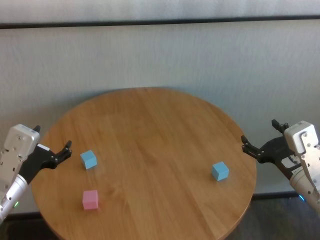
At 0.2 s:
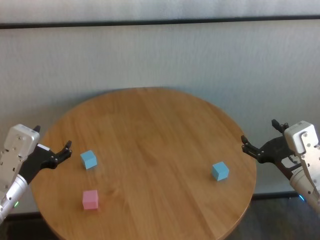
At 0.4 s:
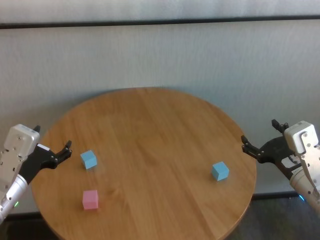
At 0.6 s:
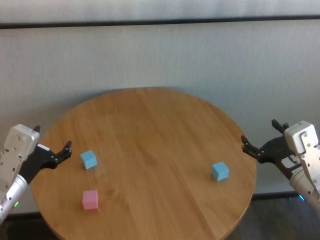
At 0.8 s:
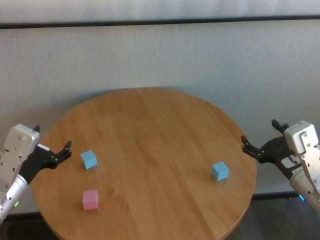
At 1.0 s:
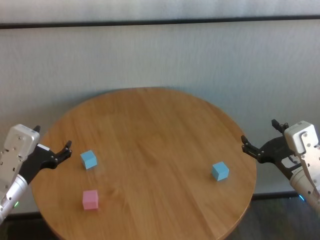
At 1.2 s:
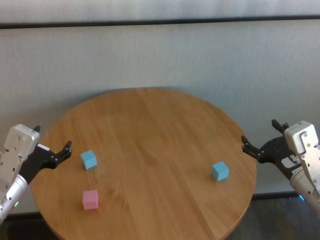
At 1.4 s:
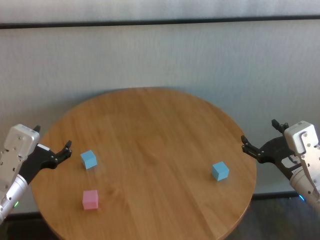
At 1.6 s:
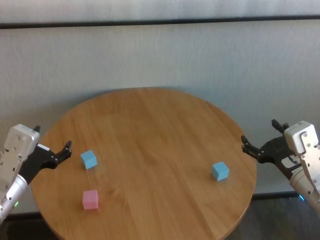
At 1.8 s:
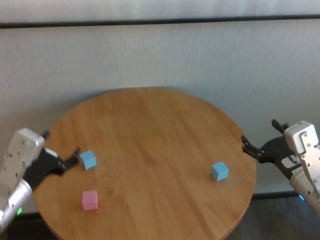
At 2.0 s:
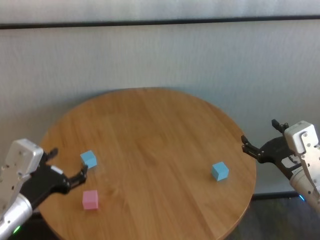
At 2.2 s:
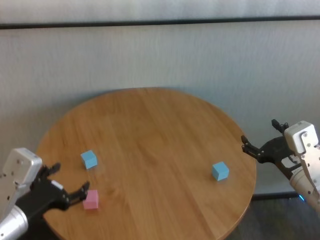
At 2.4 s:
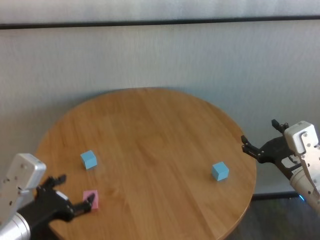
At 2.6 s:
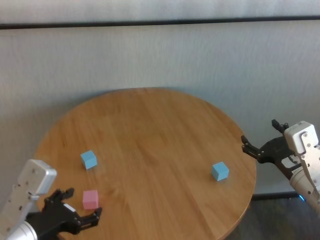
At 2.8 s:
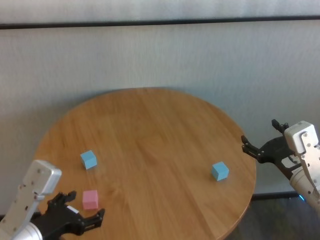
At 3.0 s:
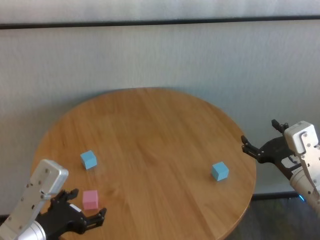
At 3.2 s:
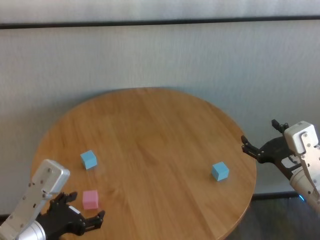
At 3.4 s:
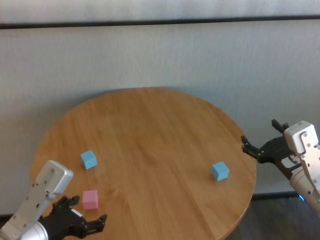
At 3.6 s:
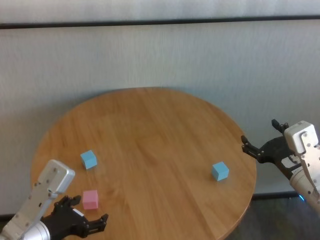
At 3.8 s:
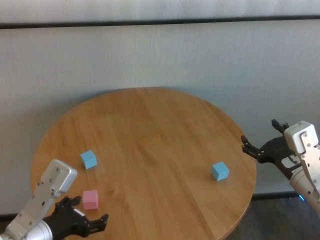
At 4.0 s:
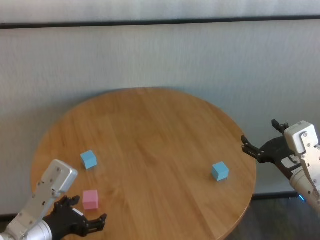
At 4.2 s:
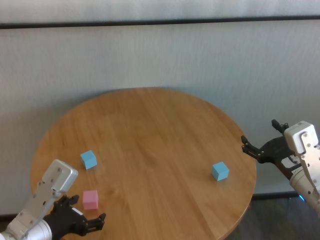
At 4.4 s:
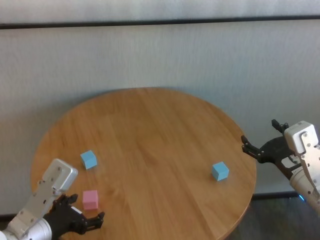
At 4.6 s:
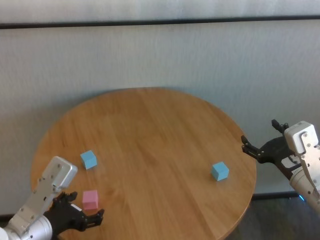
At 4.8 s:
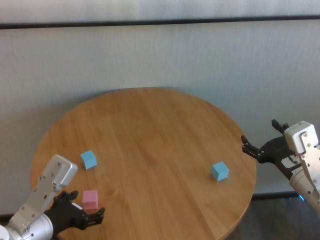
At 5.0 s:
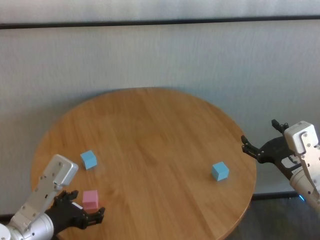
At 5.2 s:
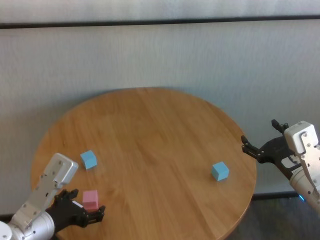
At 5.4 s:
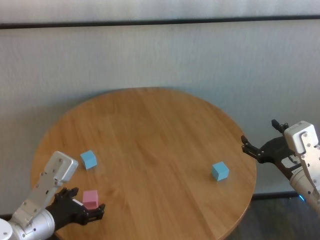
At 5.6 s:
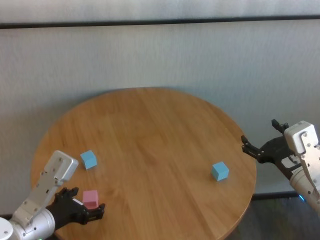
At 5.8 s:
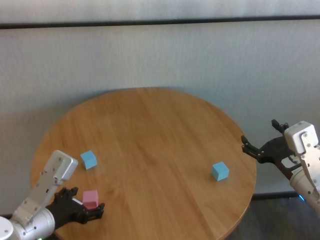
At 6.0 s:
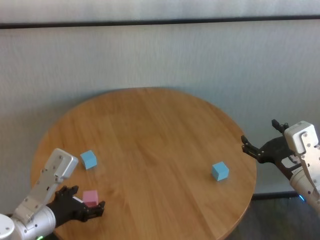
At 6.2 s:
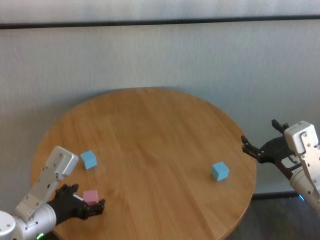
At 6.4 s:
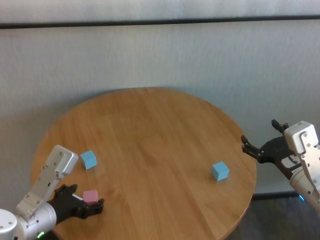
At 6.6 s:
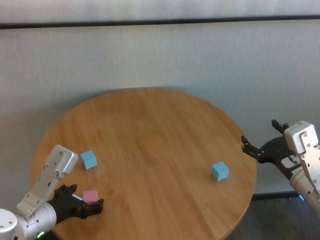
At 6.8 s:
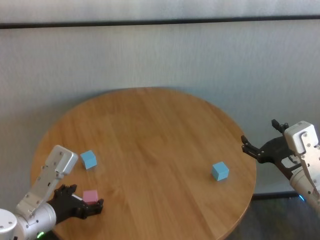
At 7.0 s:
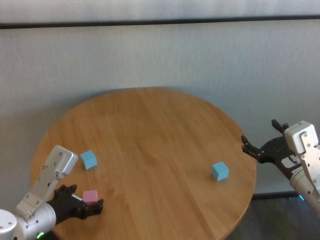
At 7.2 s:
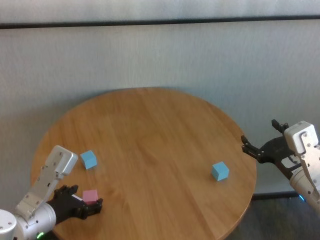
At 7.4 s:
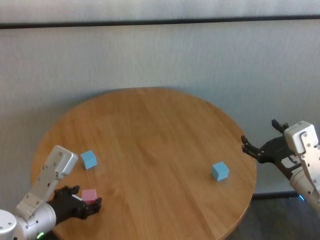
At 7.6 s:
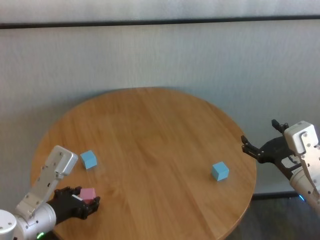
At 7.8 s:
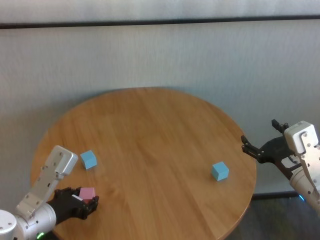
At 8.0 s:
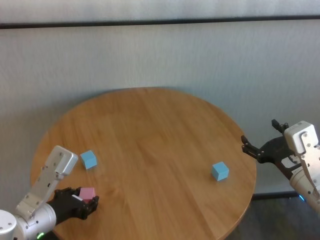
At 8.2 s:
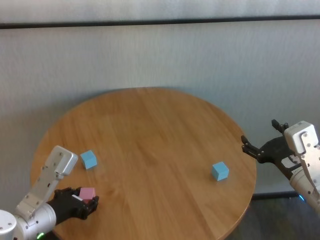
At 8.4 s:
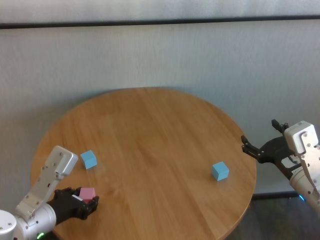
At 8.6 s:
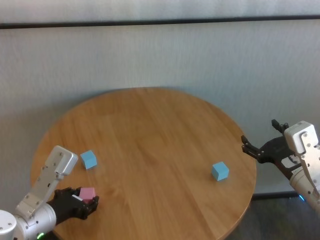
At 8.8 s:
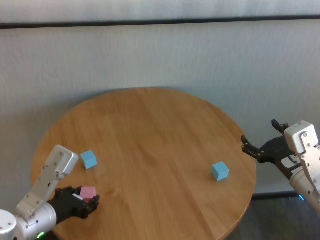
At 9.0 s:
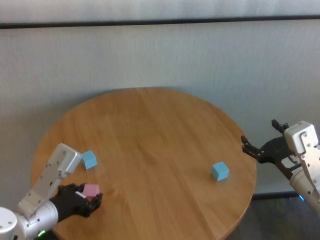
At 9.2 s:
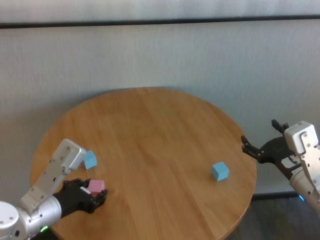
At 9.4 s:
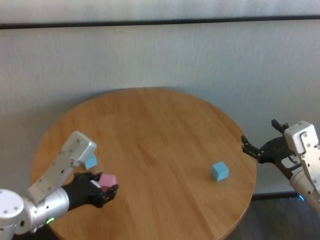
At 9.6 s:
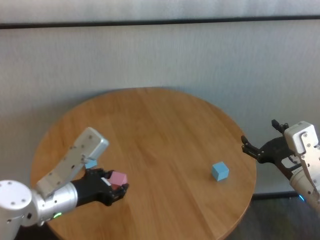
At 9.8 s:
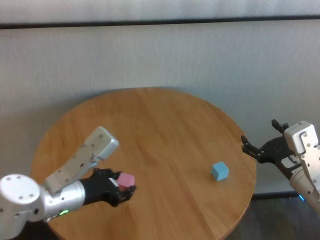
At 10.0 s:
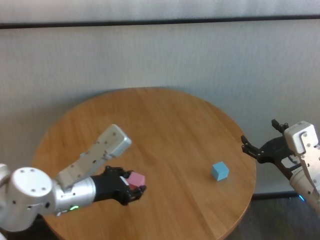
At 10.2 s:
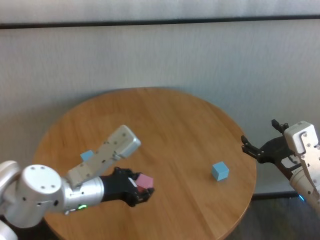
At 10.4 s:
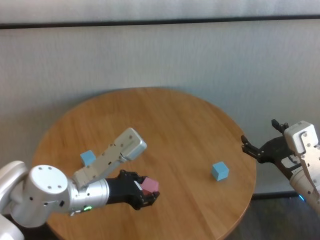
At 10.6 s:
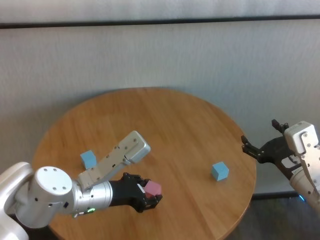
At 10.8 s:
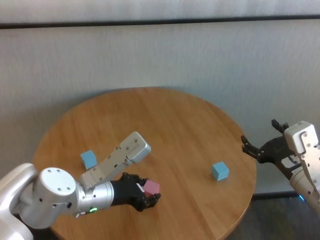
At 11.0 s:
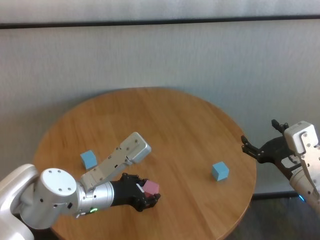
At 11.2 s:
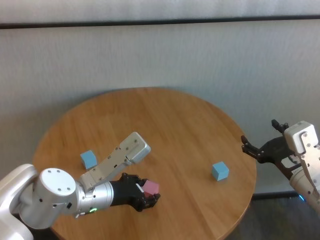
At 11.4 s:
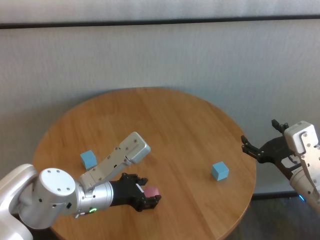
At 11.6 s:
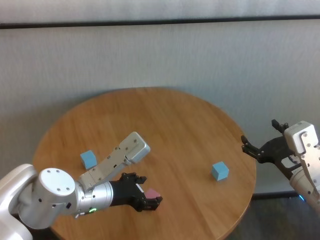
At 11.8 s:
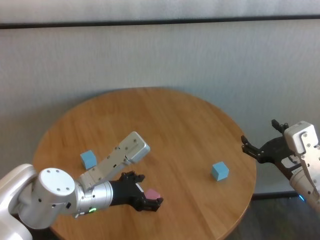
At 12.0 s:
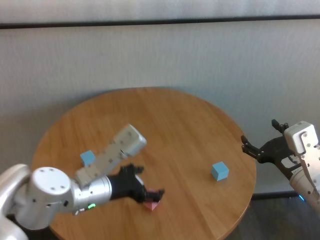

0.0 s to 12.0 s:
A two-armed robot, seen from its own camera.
Task of the whole recording: stack building blocks on the table.
Step, 0.0 to 7.6 s: Grasp the pink building block with left gripper.
Step, 7.8 to 11.6 s: Place the pink building block in the center of table with left gripper.

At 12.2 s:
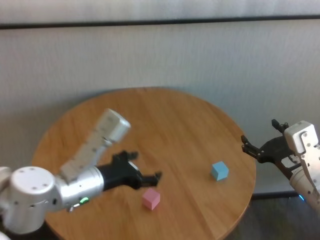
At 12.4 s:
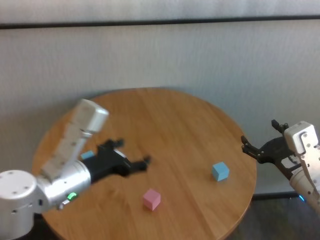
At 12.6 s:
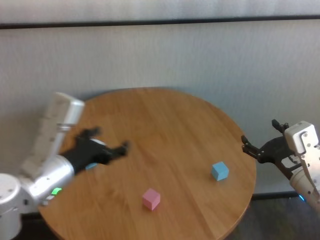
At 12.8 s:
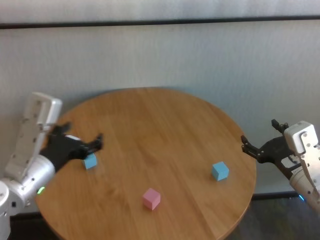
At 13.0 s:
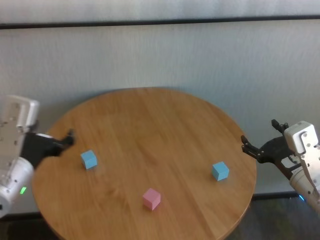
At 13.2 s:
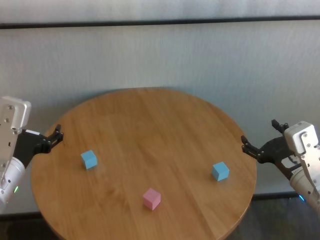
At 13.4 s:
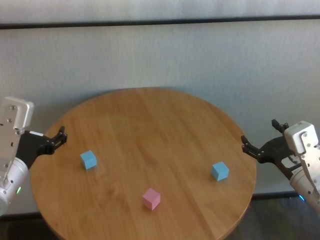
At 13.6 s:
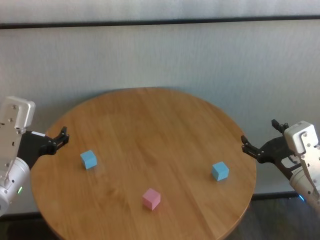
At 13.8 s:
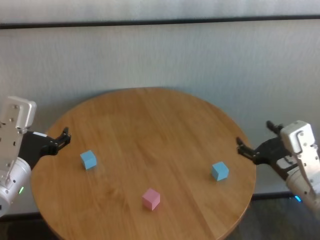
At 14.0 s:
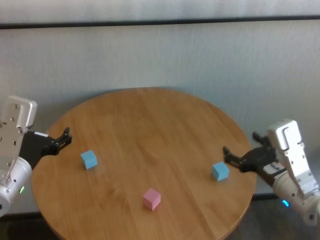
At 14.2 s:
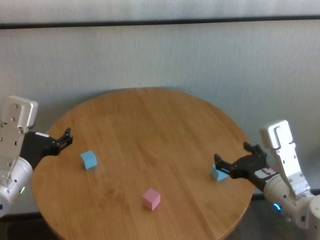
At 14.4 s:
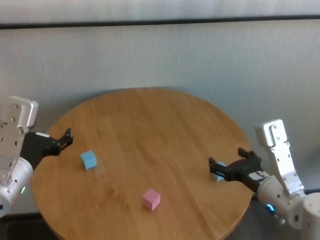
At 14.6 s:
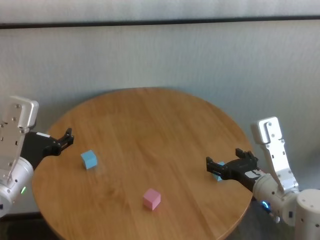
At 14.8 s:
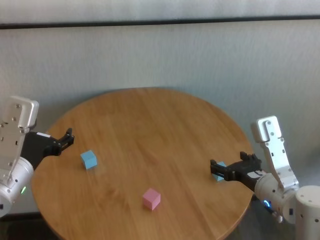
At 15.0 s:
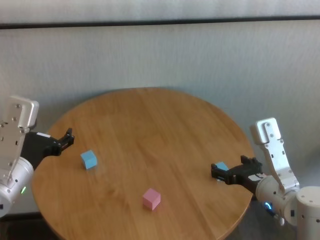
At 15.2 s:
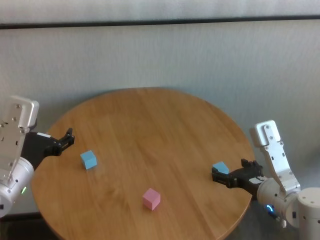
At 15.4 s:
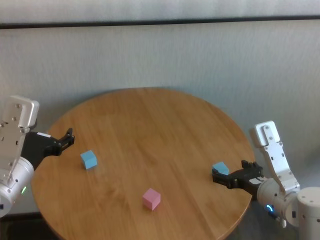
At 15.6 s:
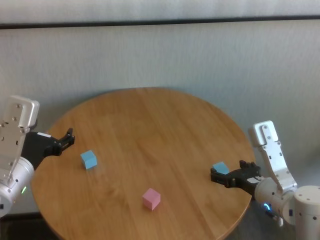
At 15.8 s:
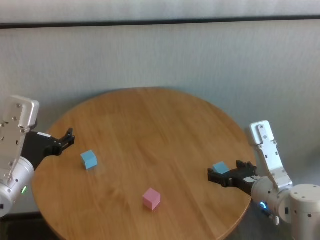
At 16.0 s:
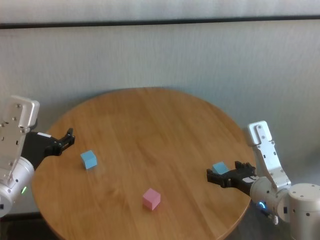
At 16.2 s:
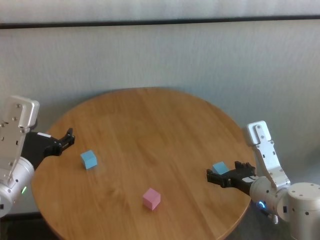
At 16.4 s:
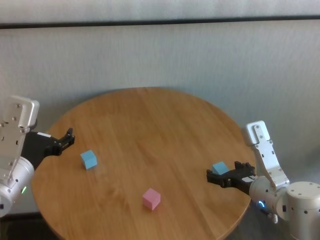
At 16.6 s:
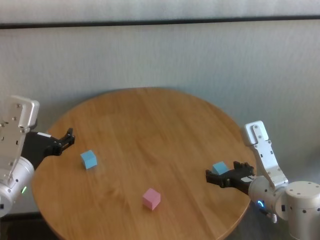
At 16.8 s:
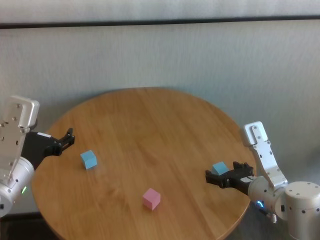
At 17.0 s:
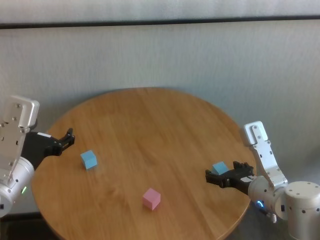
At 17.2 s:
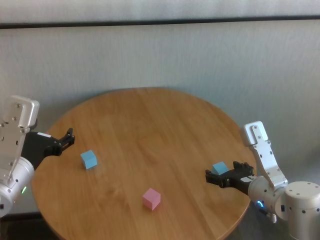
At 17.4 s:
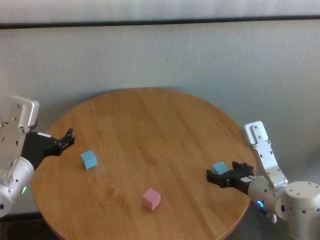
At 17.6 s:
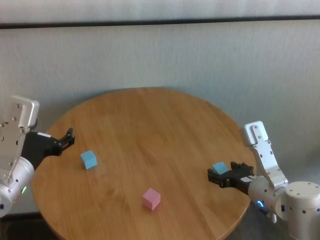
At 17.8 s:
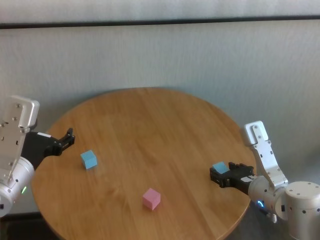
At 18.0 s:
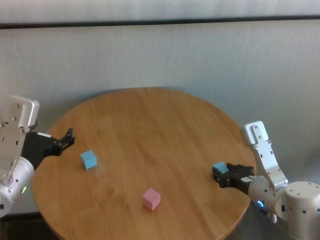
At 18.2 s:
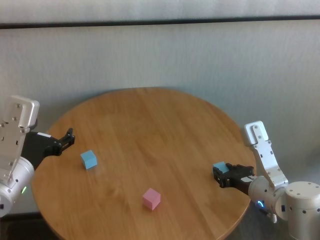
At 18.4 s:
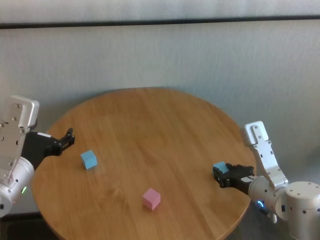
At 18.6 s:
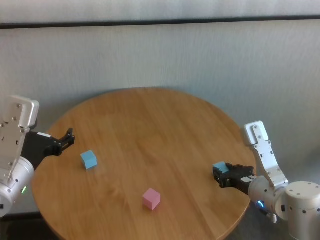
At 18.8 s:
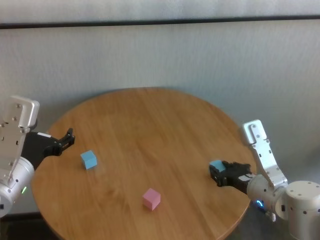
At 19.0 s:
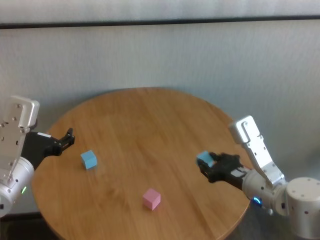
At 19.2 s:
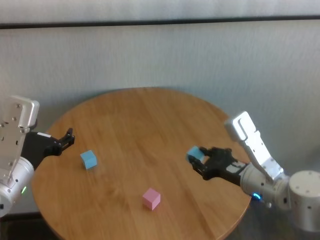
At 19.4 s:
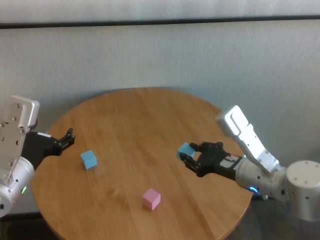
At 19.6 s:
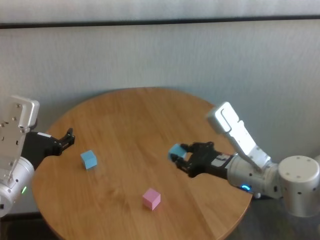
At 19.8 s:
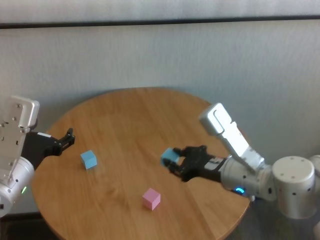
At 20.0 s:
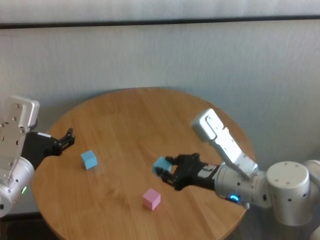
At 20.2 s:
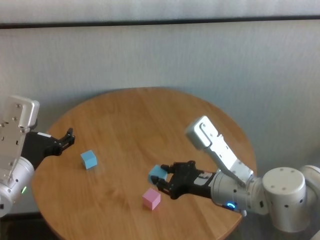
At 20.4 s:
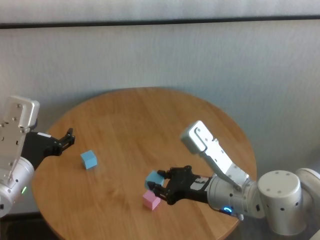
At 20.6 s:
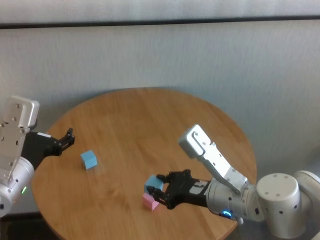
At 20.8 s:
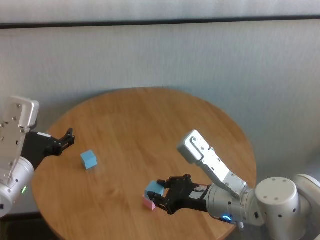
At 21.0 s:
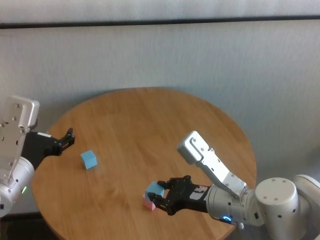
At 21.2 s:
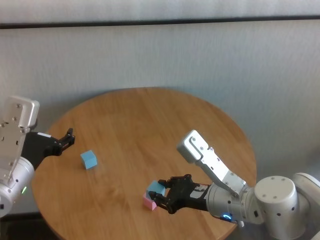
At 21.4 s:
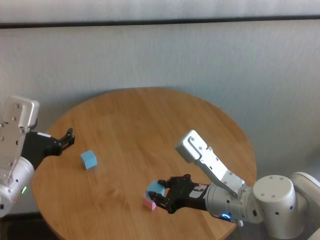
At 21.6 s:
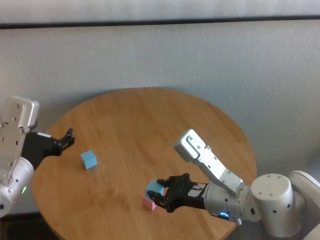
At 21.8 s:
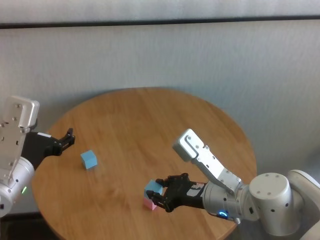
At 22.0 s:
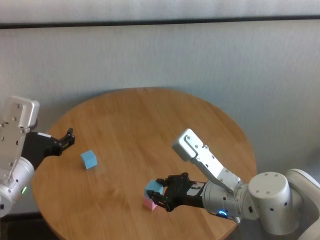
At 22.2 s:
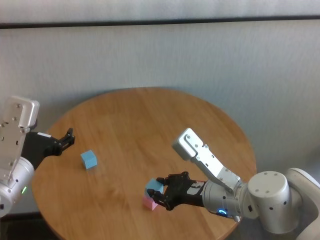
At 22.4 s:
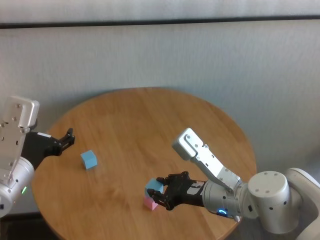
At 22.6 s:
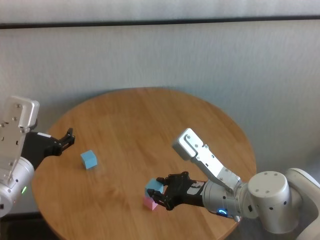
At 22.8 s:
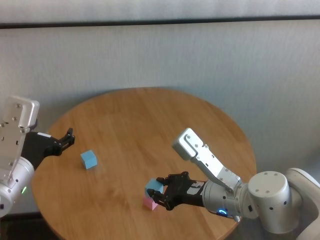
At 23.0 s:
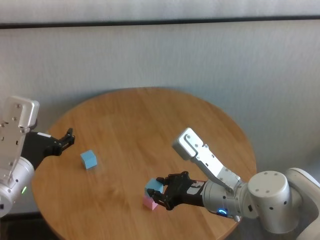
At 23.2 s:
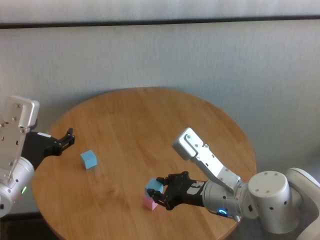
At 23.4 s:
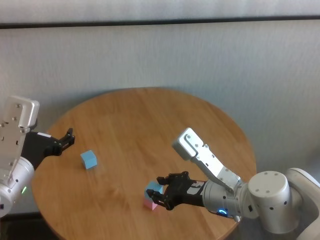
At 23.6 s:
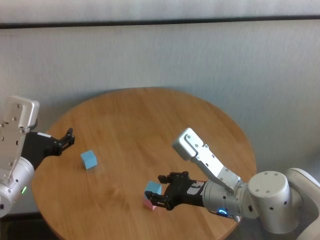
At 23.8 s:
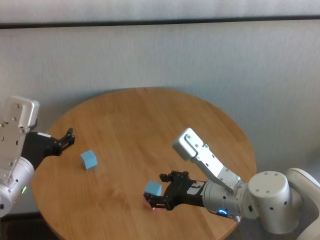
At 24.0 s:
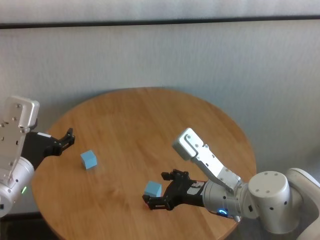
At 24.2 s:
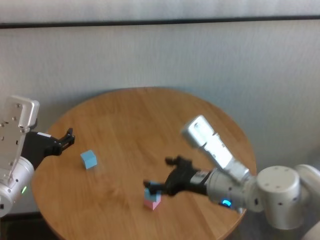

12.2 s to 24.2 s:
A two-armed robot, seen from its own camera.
Task of the whole recording: stack building blocks on the table.
Step, 12.2 to 18.0 s: Grasp the blue building block with right gripper.
Step, 18.2 to 23.4 s: Place the blue building block on the pink building blocks with right gripper.
